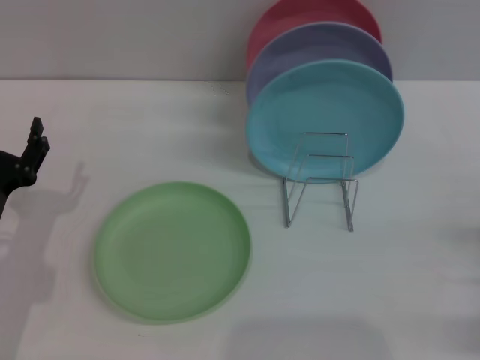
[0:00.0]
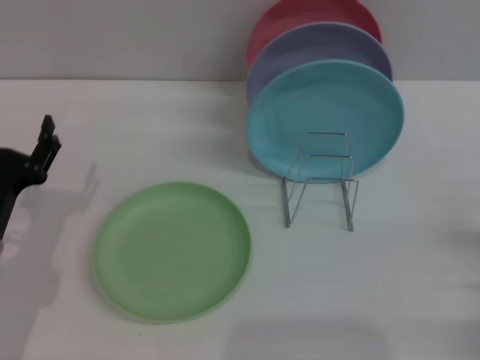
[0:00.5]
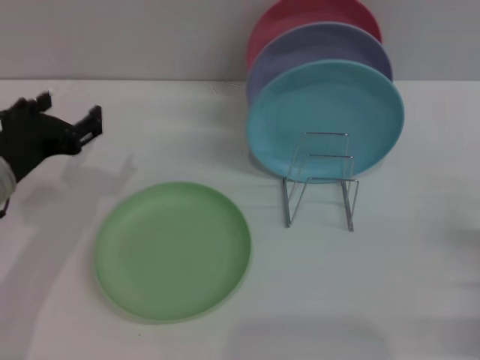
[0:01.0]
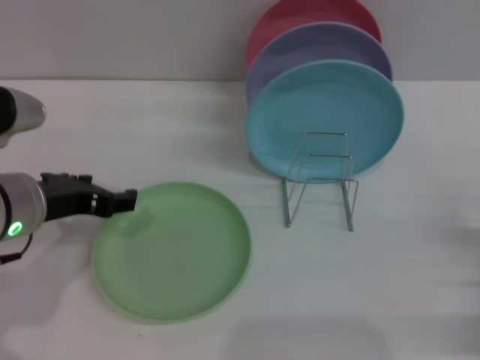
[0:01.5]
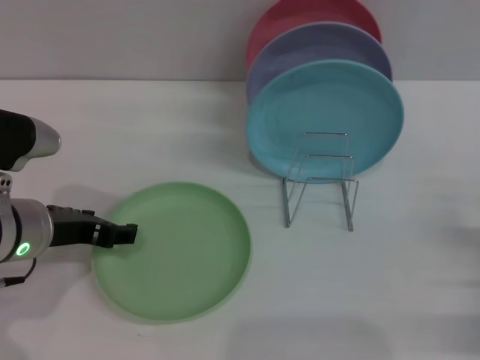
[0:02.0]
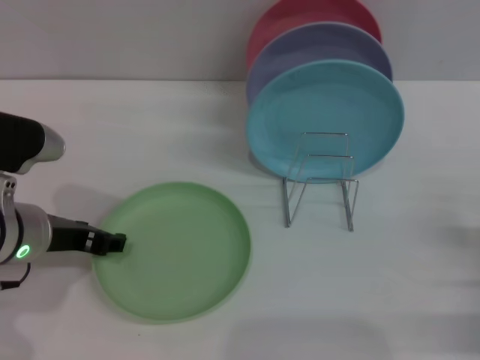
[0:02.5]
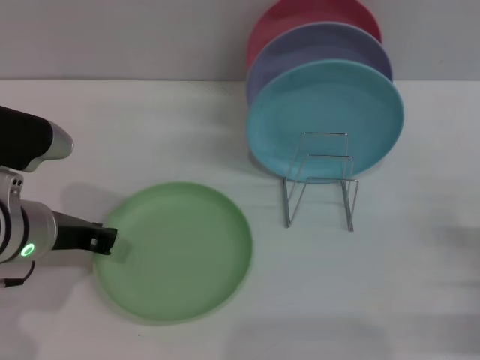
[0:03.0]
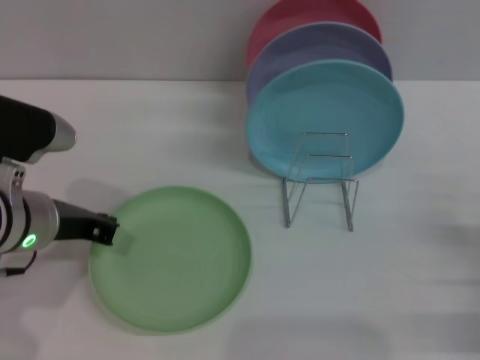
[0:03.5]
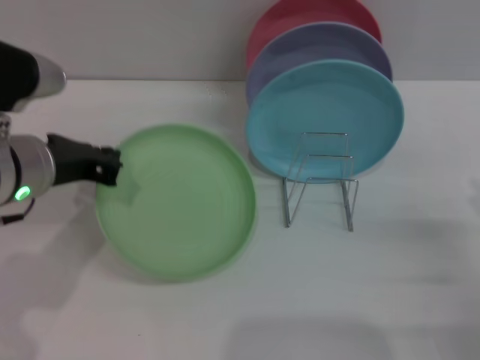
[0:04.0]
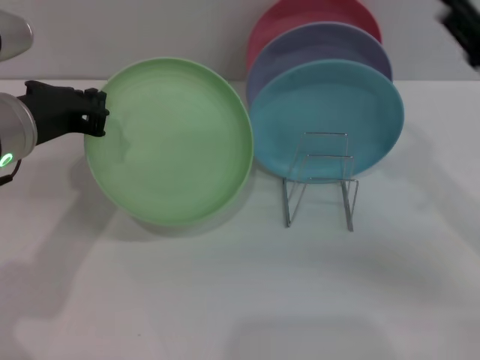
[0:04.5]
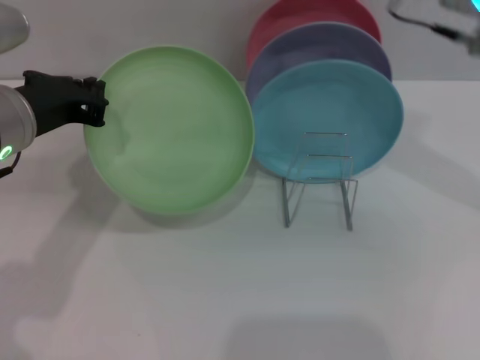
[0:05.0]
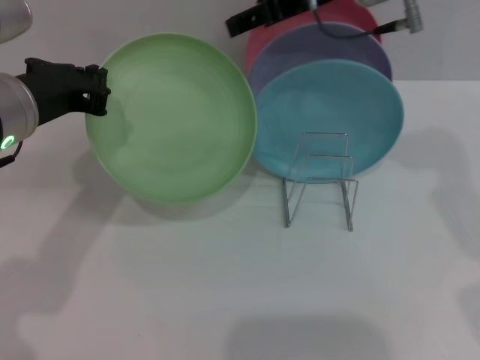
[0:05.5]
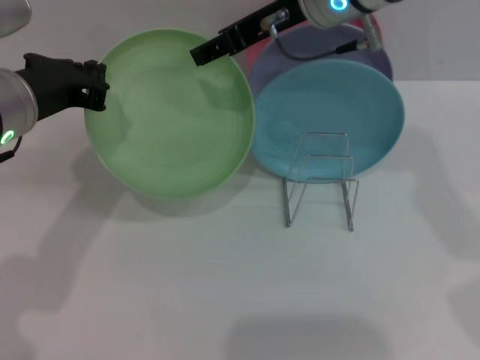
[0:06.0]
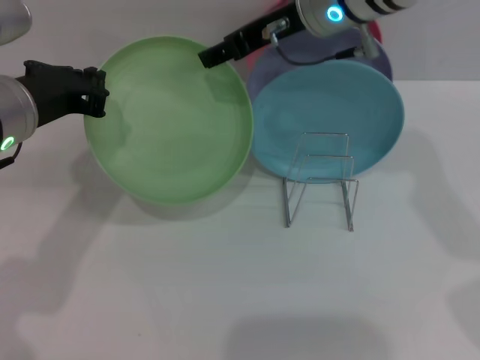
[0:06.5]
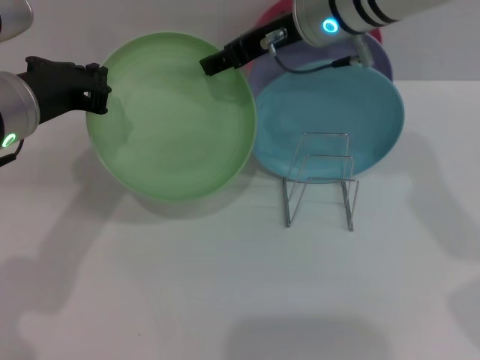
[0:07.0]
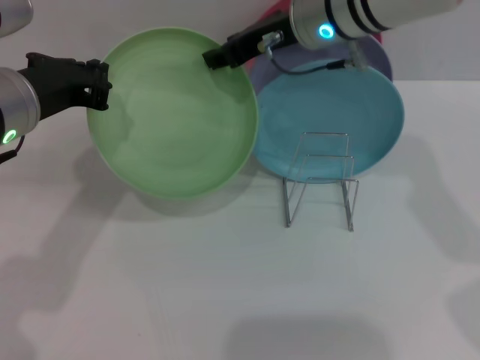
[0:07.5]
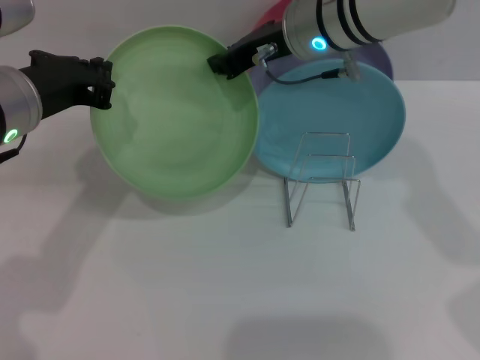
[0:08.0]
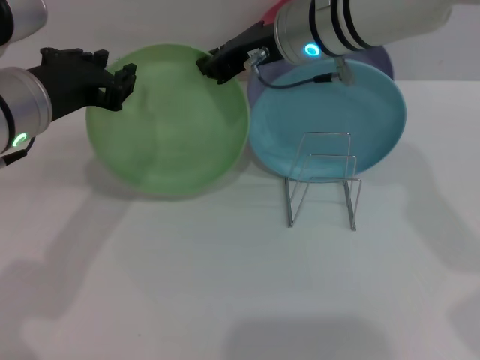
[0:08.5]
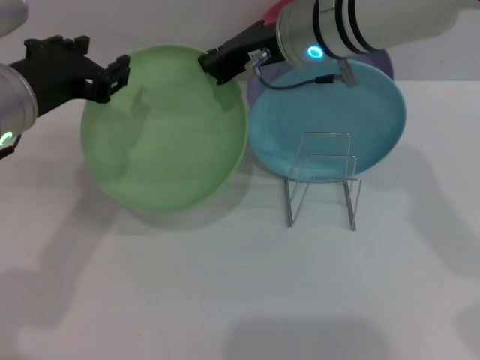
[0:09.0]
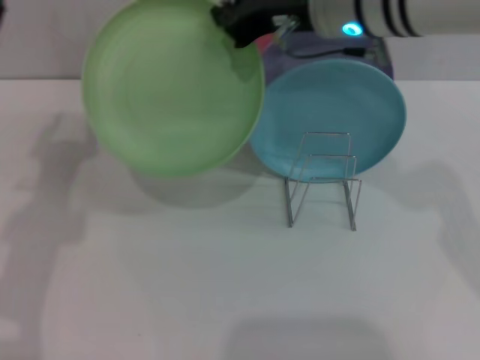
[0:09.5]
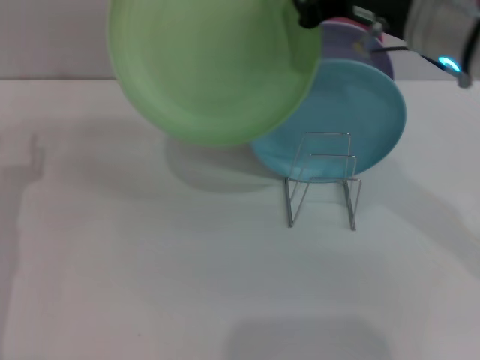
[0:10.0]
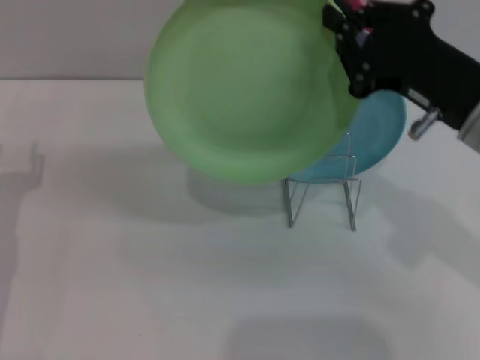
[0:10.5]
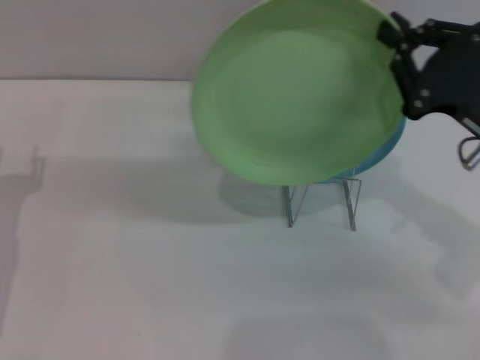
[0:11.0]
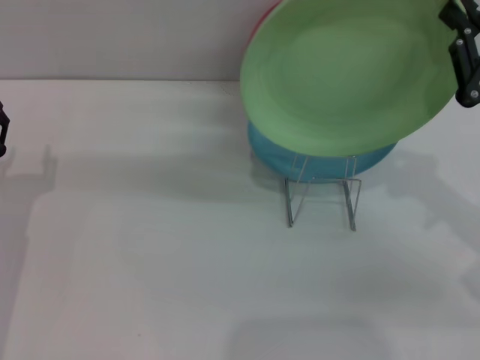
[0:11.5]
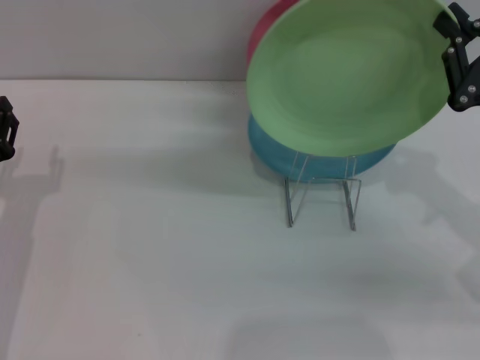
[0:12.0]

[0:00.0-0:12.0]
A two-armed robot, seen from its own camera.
Task of the whole recording: Grip the plate with one hand, pass it to the other, then set it on the shelf.
Step, 0:00.0 to 0:04.0: Pick up the plate with the left gripper.
Step, 0:05.0 to 0:09.0: Pass the plate from the left gripper to the right gripper.
0:00.0 to 0:02.0: The left gripper travels upward and to the right by about 10 cm.
0:02.0 to 0:04.0: The left gripper travels upward by roughly 5 cm, and closes up.
0:04.0 to 0:06.0: The right gripper travels to the left, upward and forward by some 40 cm.
0:06.0 to 0:08.0: The right gripper closes up.
0:08.0 to 0:10.0: The left gripper heads downward and to the left, covering approximately 15 cm, and opens its fingers. Meanwhile the right gripper travels backward and to the right by about 15 cm.
0:10.0 to 0:12.0: The left gripper shifts by some 5 cm. Meanwhile the right gripper travels to the right and downward by approximately 15 cm.

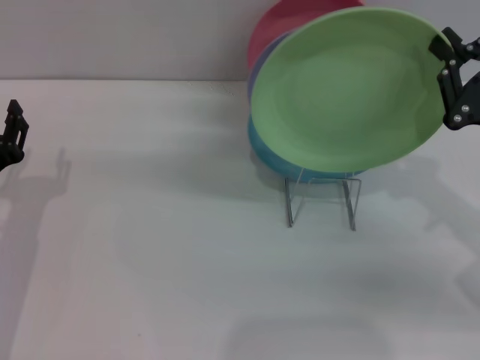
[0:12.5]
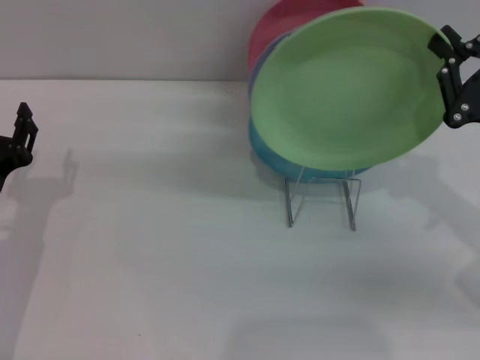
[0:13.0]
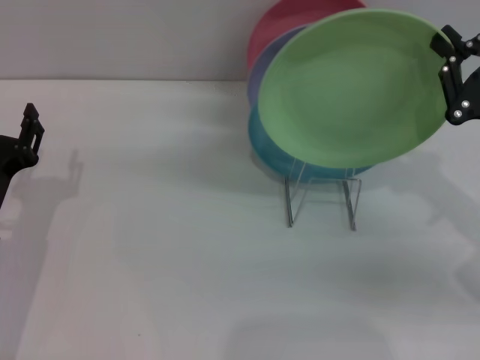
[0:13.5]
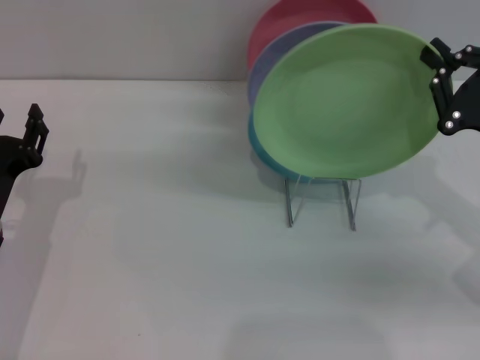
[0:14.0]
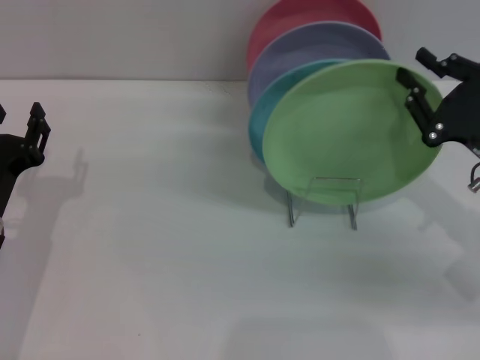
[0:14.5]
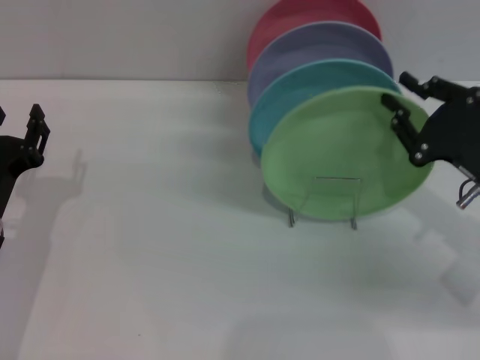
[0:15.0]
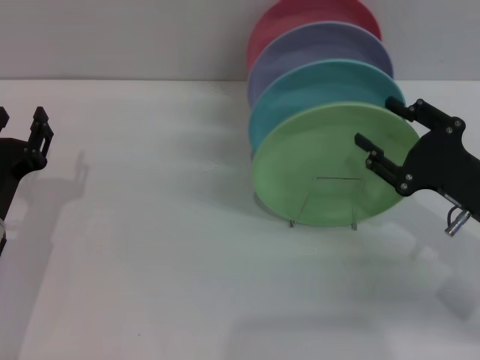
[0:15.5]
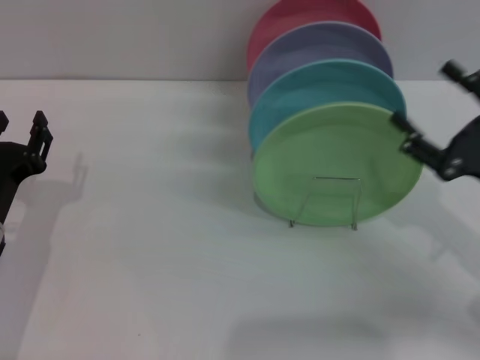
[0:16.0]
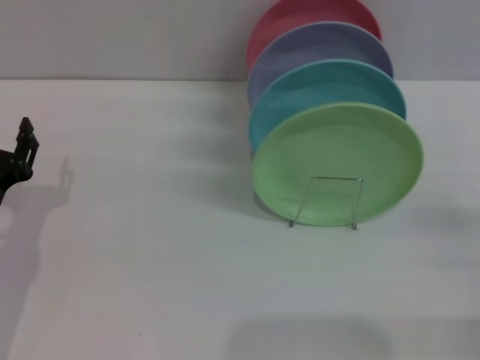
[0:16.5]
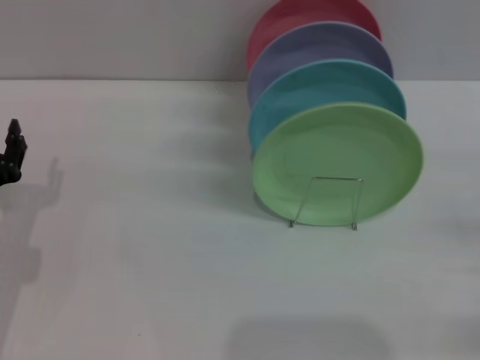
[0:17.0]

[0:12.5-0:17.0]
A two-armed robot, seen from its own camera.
Task of the whole recording: Grip the plate with one hand, pass it to the other, then set it on the shelf.
Step, 0:12.5 to 0:14.5: Place the plate on the shelf with the right gripper.
0:12.5 to 0:14.5: The grippers make only small movements.
0:14.5 to 0:17.0: The right gripper heads to the right, backward and downward, covering roughly 15 cm, and opens.
